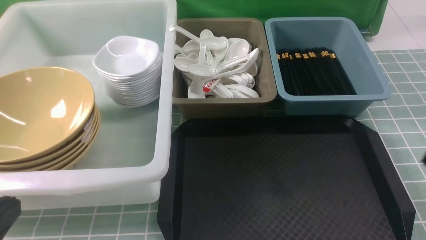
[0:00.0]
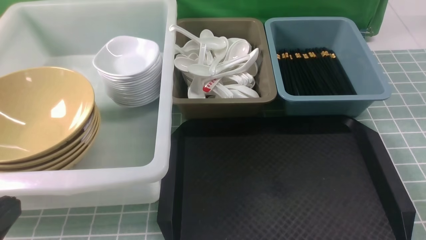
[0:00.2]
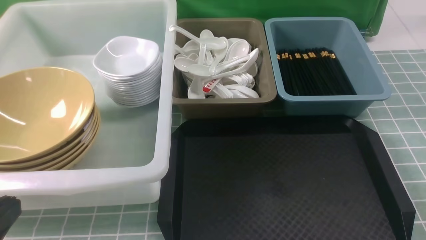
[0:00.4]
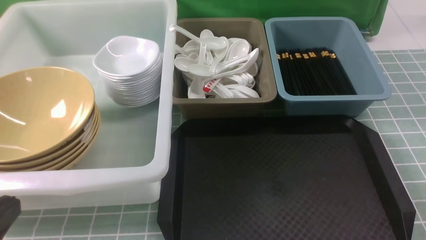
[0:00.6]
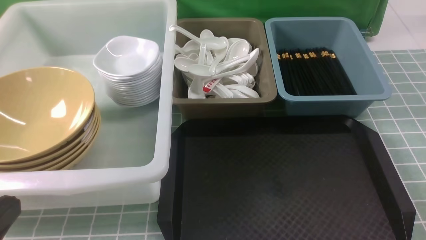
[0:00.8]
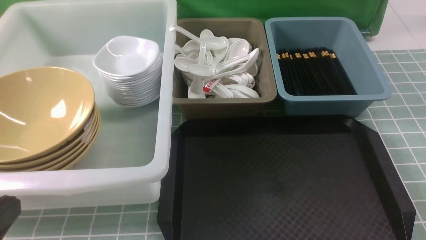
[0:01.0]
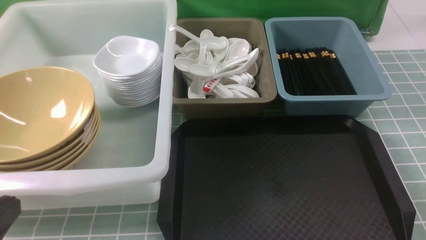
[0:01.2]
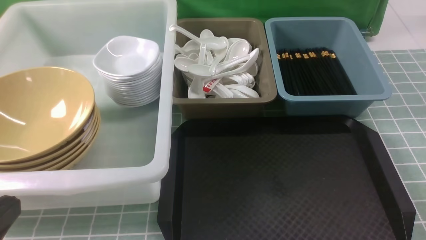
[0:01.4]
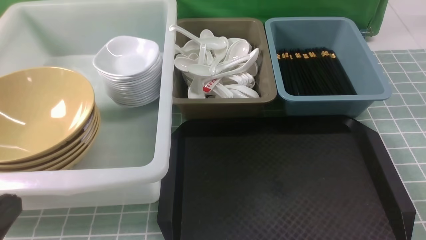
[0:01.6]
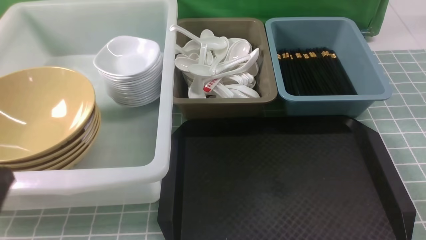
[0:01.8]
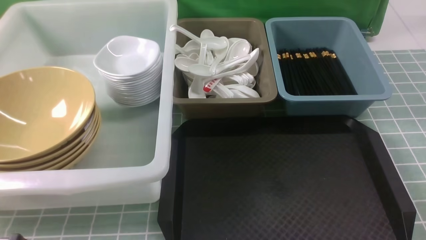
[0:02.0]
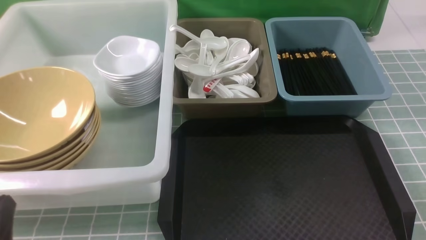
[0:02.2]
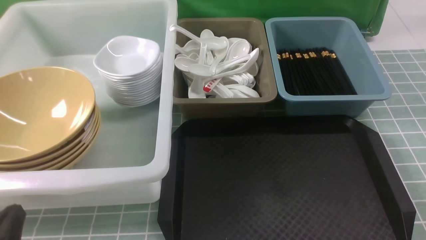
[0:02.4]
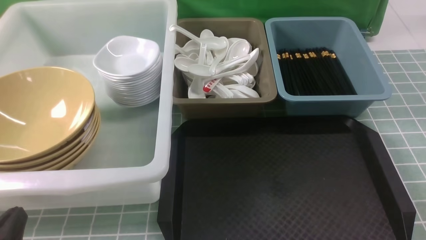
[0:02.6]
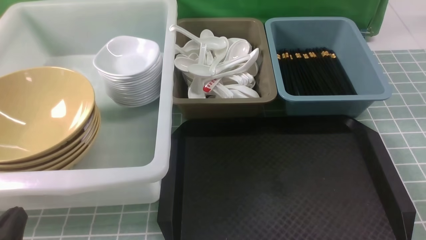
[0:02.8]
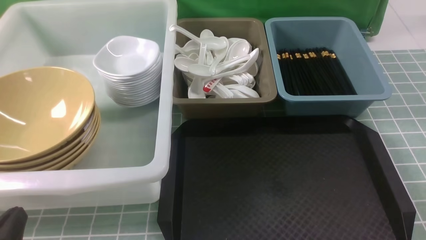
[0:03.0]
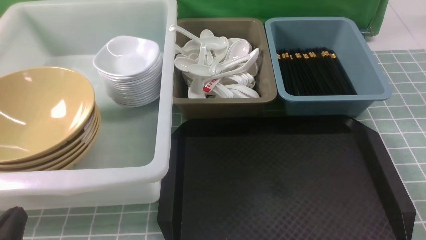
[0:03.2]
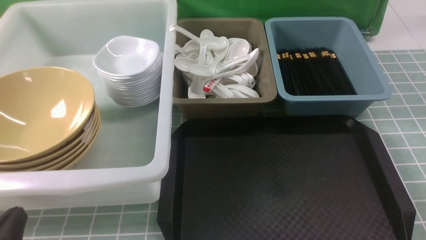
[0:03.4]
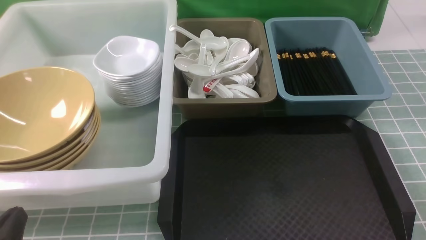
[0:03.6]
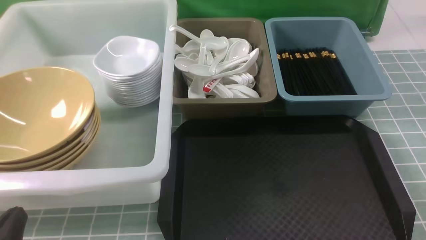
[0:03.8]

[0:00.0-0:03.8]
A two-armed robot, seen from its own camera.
Task of the whole recording: on blue table put chopsticks spoon bowls plates into blue grey white boxes.
0:01.2 to 0:02.6: The left gripper moves downward, approximately 10 cm.
0:02.6 to 0:03.8: Both grippers stay about where they are.

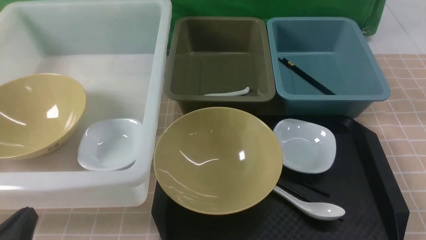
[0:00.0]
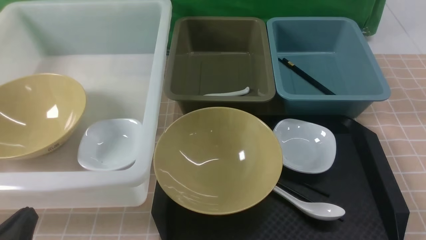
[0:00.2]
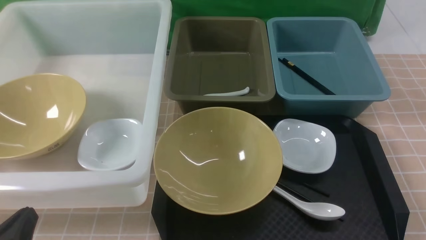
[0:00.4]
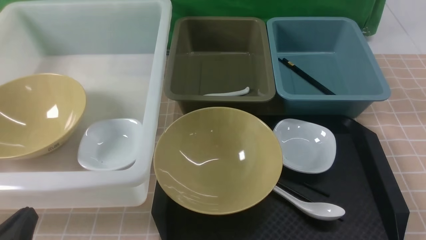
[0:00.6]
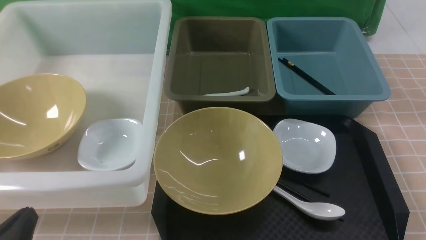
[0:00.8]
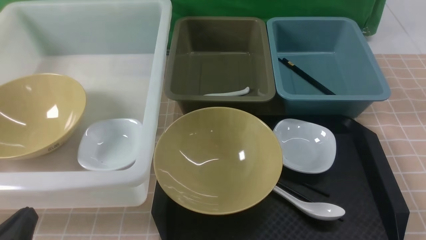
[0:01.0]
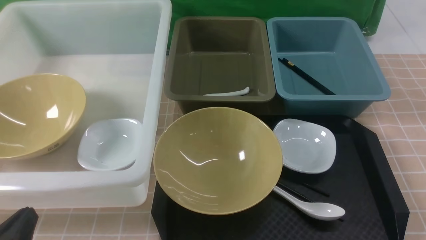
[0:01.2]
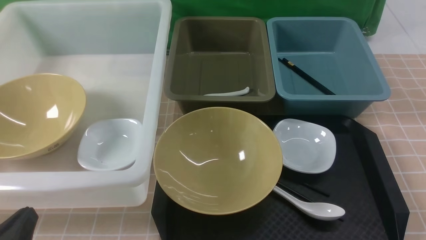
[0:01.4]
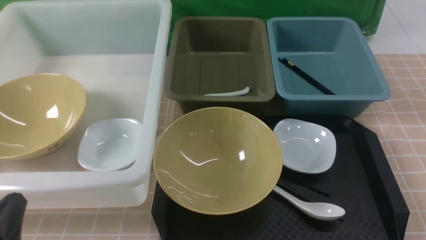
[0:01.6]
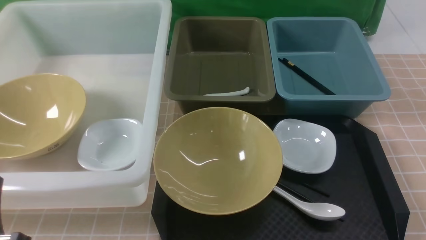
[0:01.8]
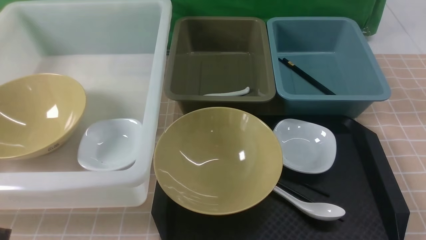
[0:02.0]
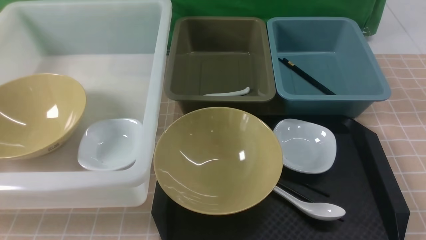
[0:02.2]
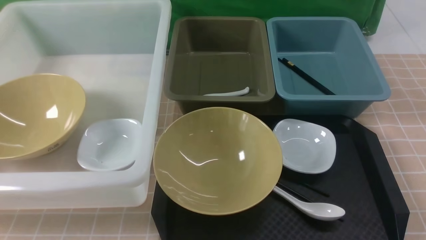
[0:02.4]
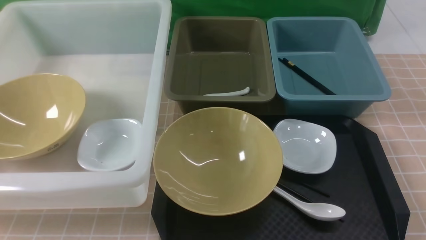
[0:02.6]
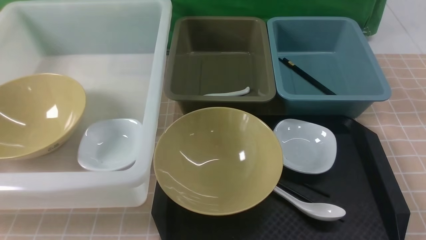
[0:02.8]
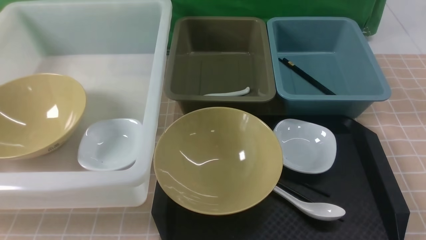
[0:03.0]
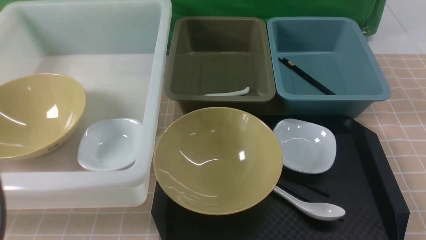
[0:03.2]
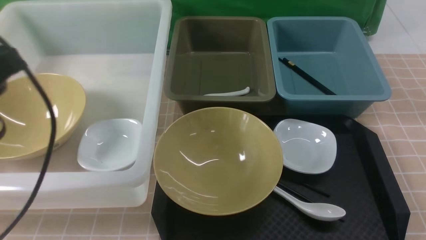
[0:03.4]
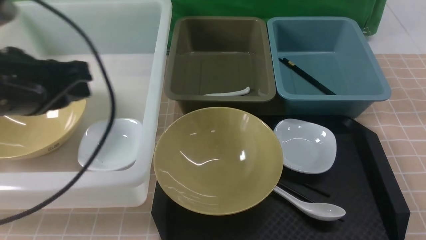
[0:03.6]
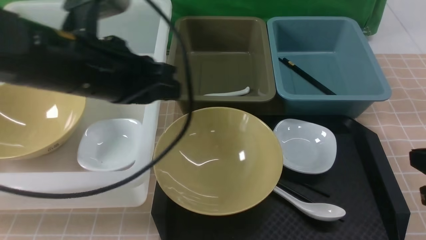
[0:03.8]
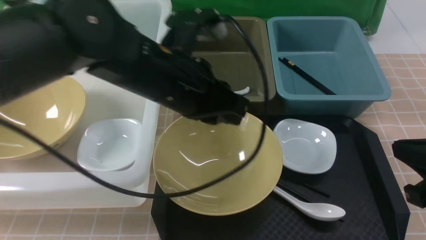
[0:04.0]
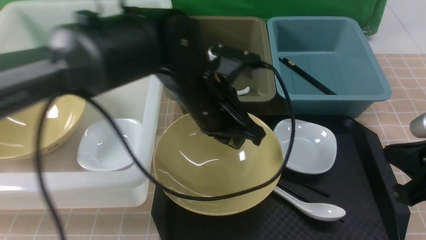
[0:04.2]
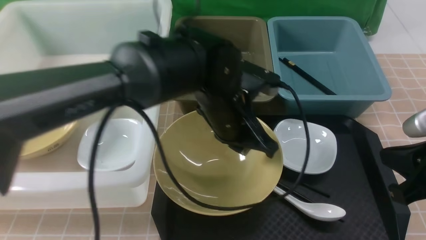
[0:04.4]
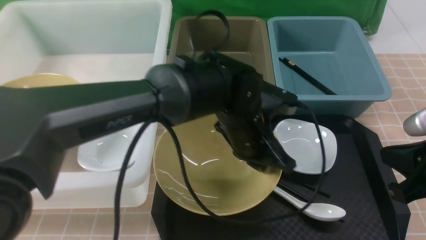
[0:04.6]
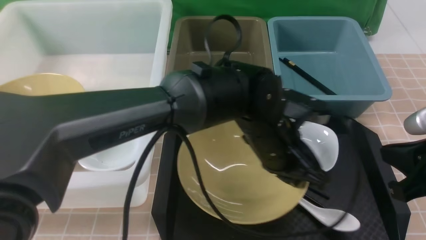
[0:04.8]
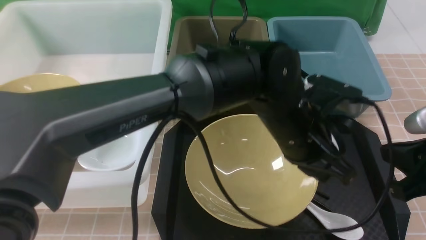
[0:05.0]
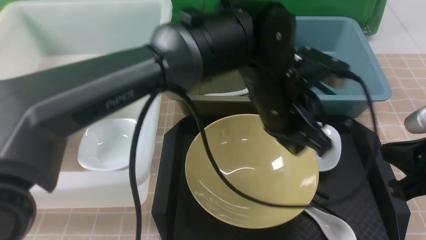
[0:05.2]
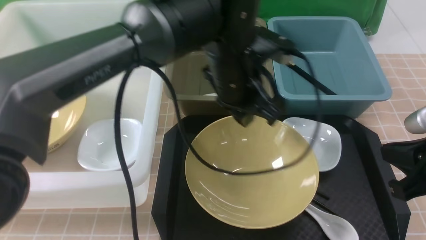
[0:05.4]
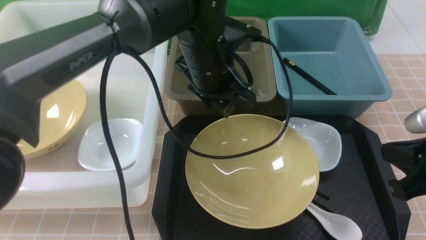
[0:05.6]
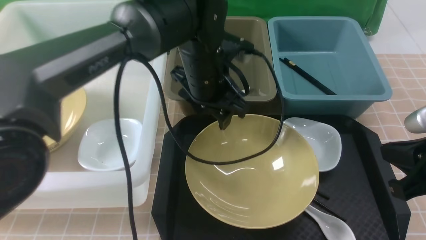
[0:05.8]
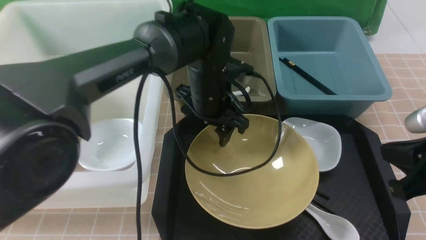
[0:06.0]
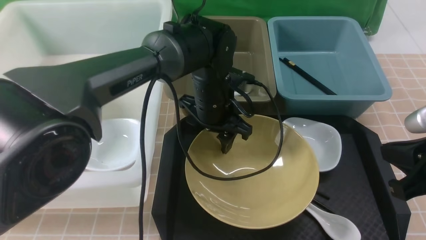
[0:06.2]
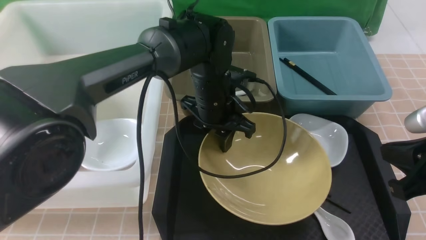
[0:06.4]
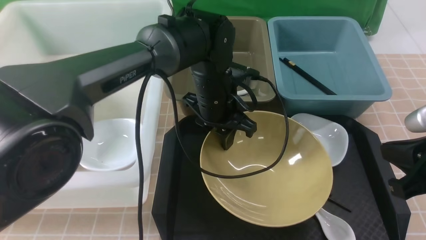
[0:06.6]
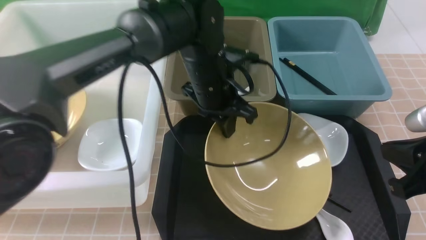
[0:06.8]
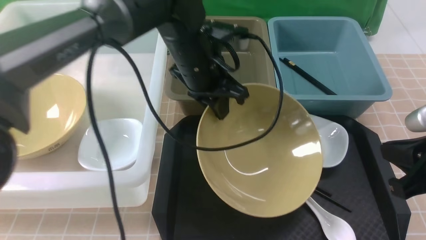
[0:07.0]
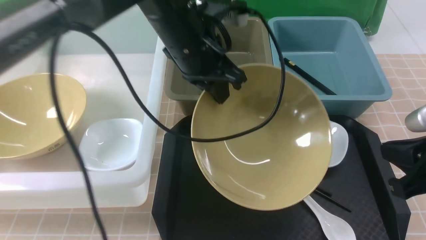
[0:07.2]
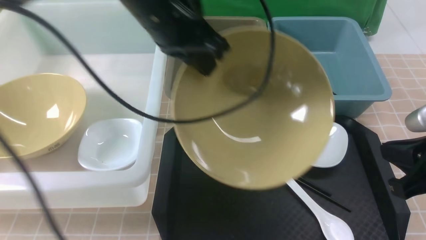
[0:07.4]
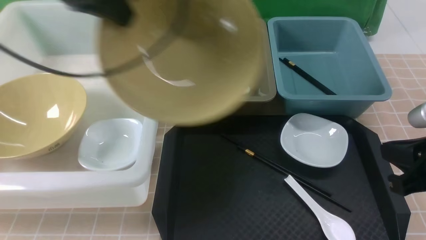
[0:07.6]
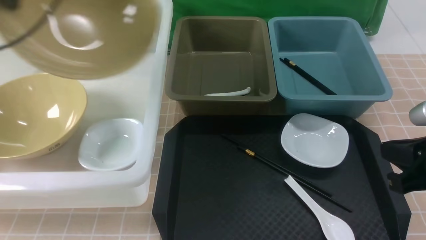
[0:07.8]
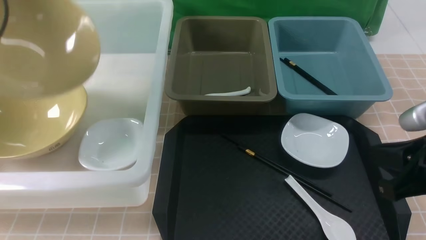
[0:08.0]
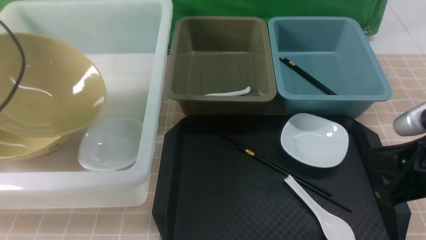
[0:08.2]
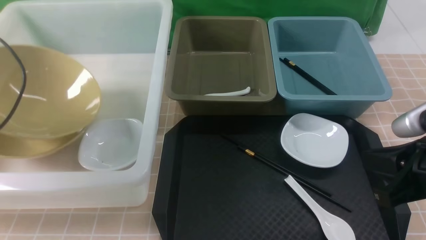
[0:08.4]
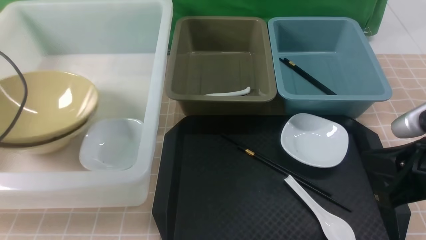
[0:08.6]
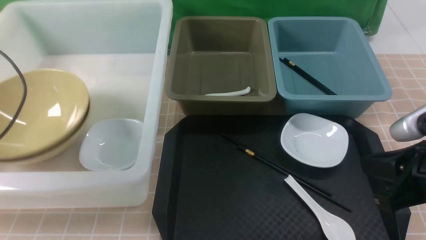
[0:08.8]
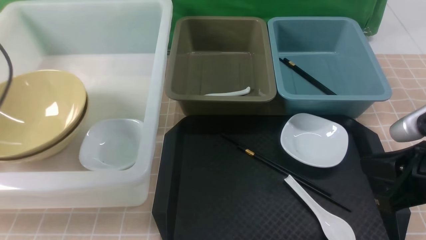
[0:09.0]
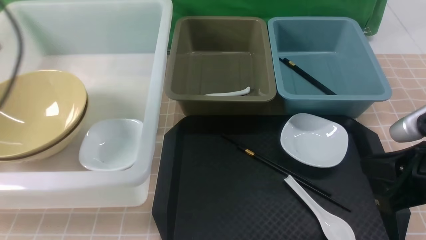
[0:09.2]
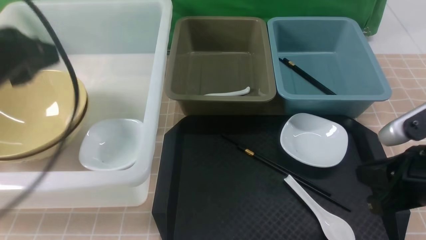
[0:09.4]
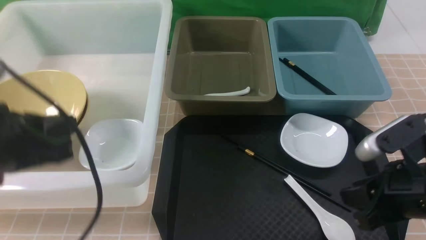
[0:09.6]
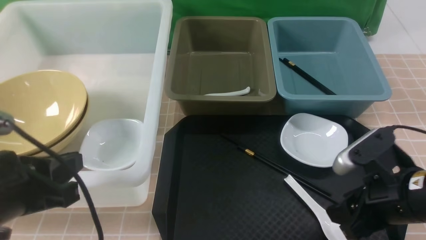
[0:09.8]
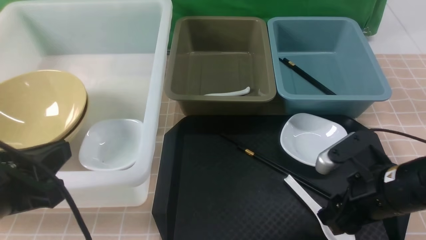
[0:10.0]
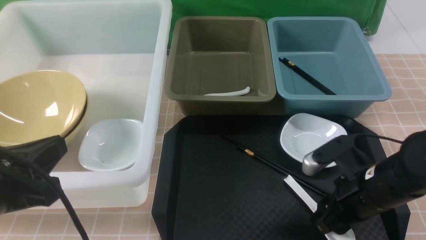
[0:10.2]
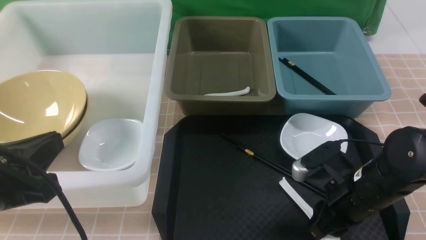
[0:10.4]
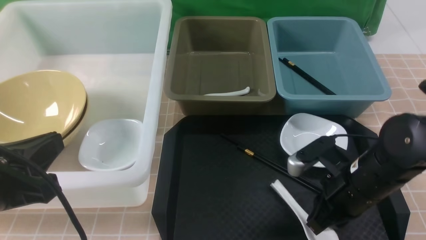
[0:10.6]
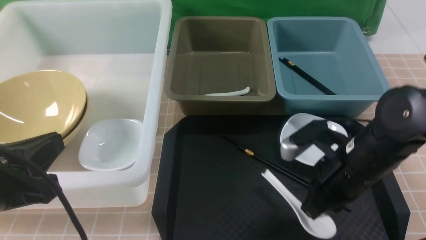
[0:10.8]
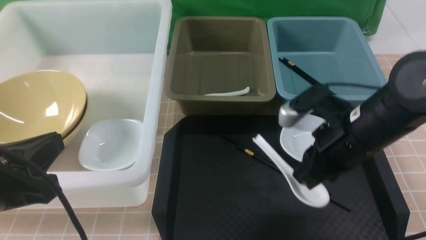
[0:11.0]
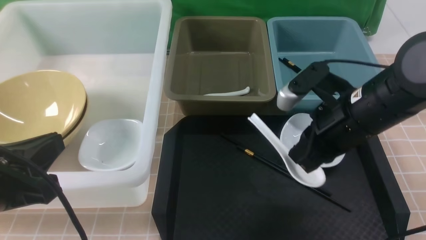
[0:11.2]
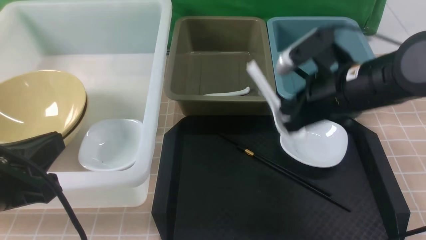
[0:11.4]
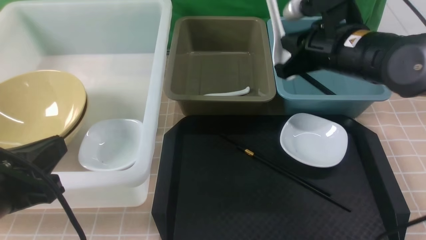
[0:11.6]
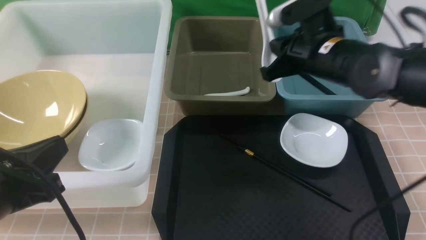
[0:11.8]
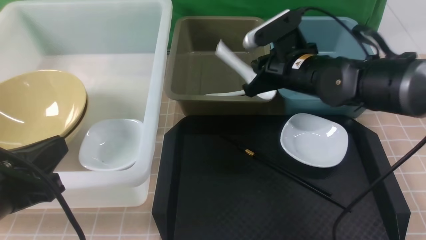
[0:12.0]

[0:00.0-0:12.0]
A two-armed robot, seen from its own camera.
Task of the whole recording: on brown table put chopsticks spoon bowls plates into blue grey white boxes.
Step, 0:00.0 to 0:06.8: use the left arm to grab the yellow noodle bowl on the left.
Step, 0:07.2 to 0:08.6: use the left arm to put the noodle bowl into the large storage box on the left.
Step, 0:08.8 to 0:10.8: use the right arm to grab the soup spoon in the middle.
0:01.6 to 0:03.0: The left gripper shifts approximately 15 cm upward.
0:03.0 to 0:04.4: The left gripper is displaced to the right and forward by approximately 35 cm, while the right gripper shifts roughly 10 cm forward and to the left.
0:04.4 to 0:06.0: The left gripper shifts some 5 cm forward, and opens.
0:06.0 to 0:07.6: The left gripper travels upward and to the left by roughly 25 cm, and closes.
0:07.6 to 0:09.0: The left gripper is displaced to the left and downward by roughly 25 cm, and opens.
0:09.0 to 0:10.4: The right gripper travels downward, forward and to the left by some 15 cm, and opens up. Meanwhile the left gripper is displaced backward and to the right by about 20 cm, and closes up.
0:10.4 to 0:12.0: The right gripper is displaced forward, upward and to the left by roughly 20 cm, and closes up.
